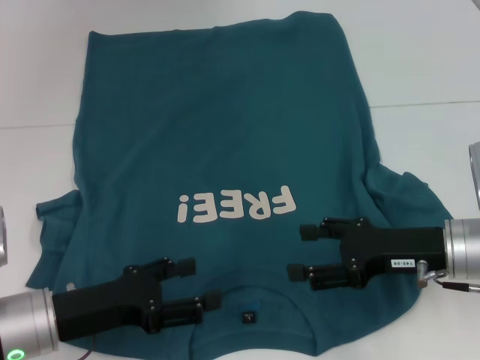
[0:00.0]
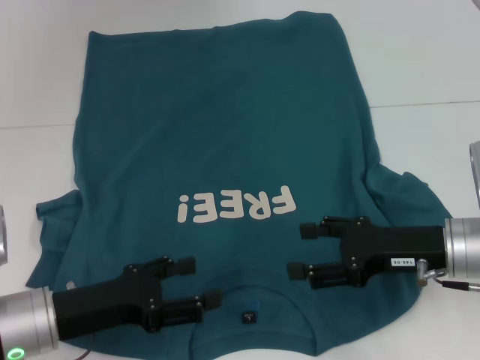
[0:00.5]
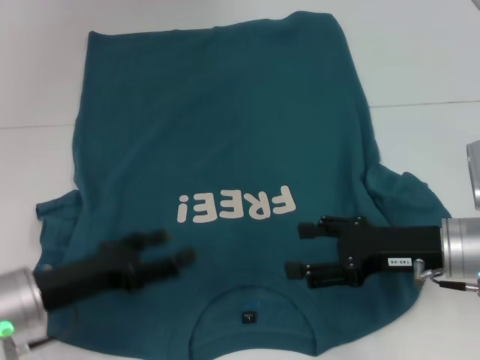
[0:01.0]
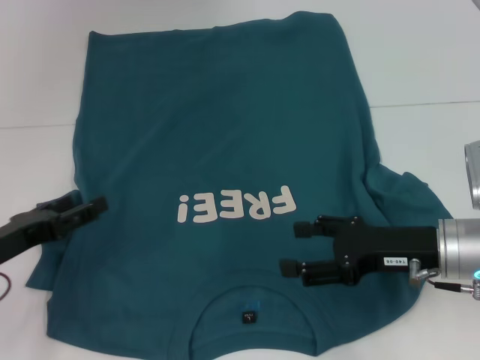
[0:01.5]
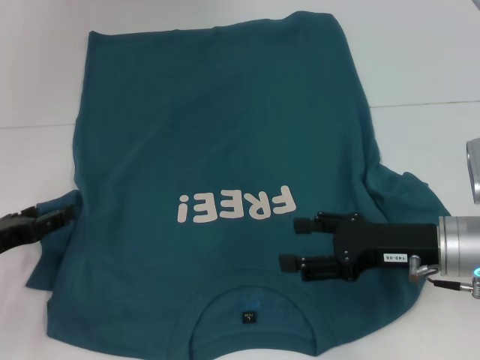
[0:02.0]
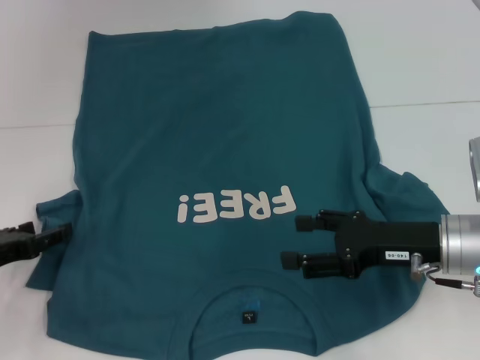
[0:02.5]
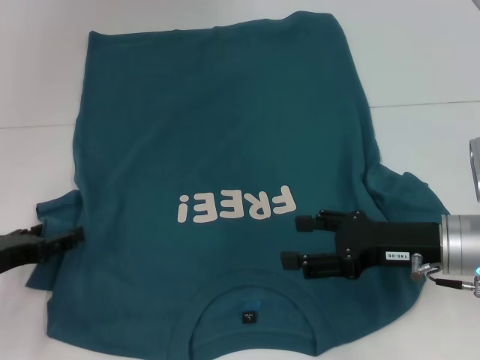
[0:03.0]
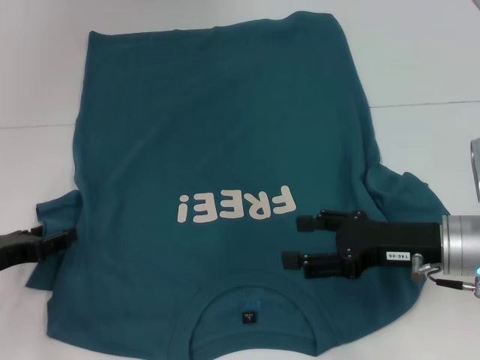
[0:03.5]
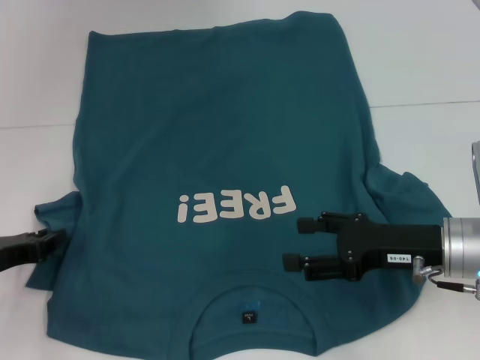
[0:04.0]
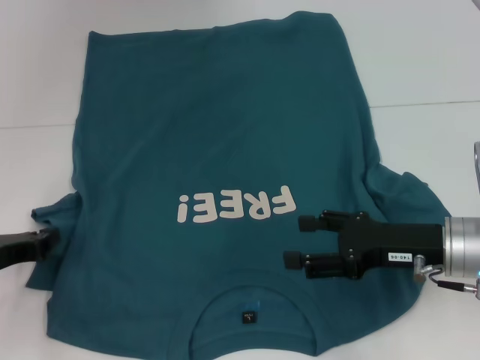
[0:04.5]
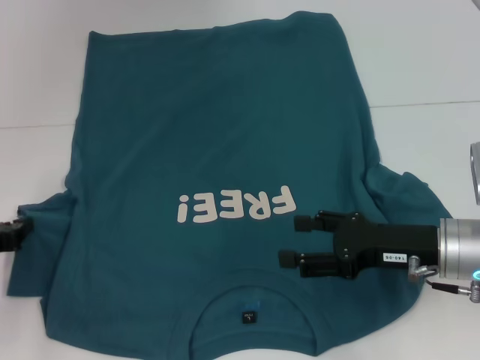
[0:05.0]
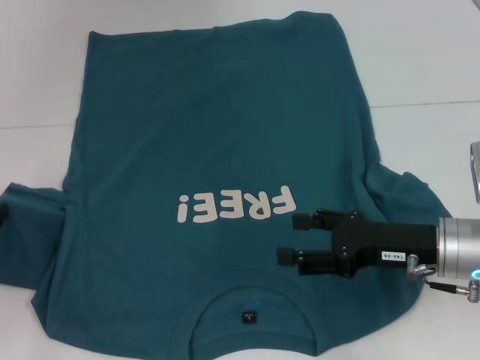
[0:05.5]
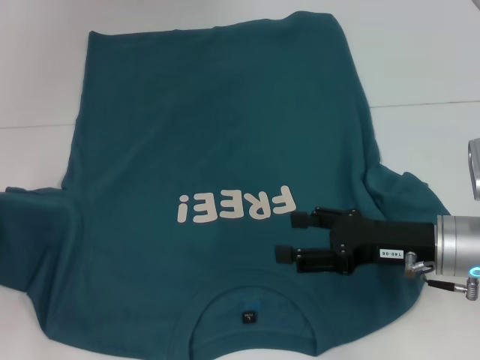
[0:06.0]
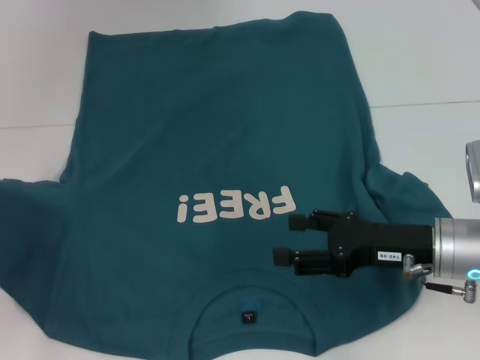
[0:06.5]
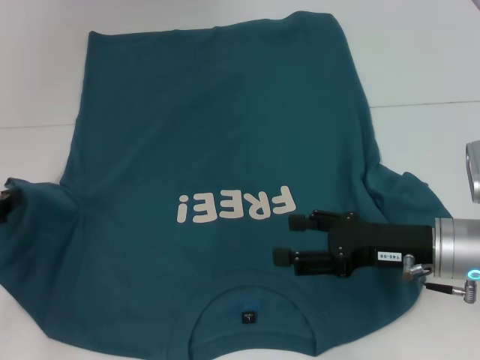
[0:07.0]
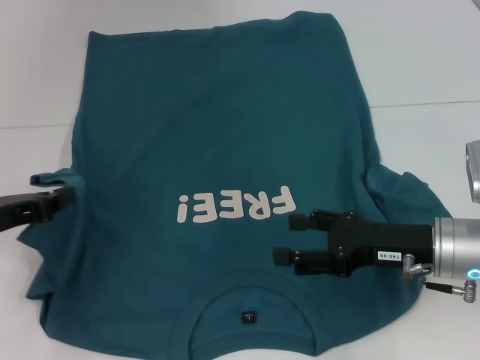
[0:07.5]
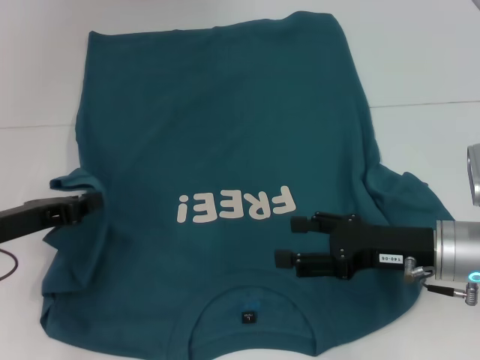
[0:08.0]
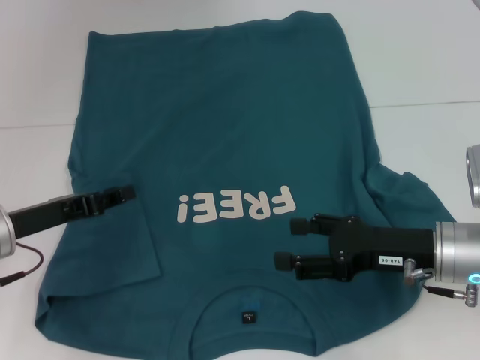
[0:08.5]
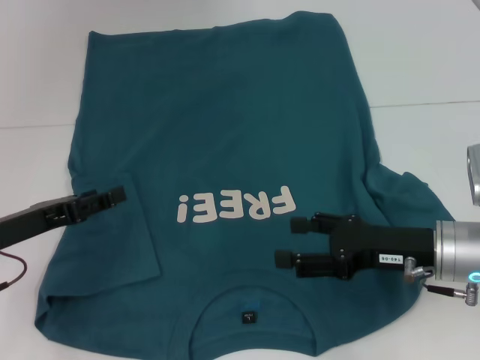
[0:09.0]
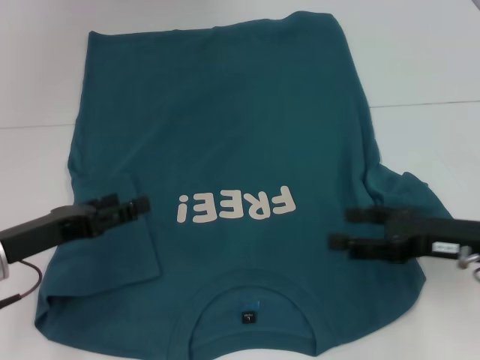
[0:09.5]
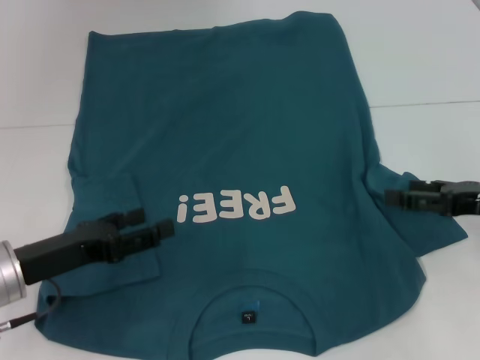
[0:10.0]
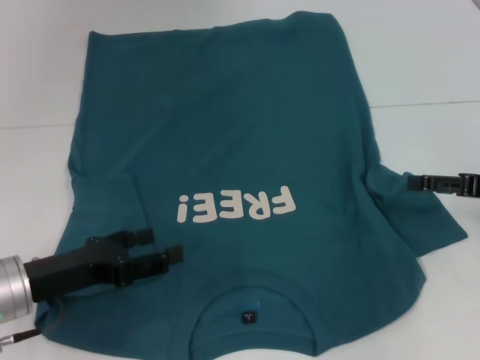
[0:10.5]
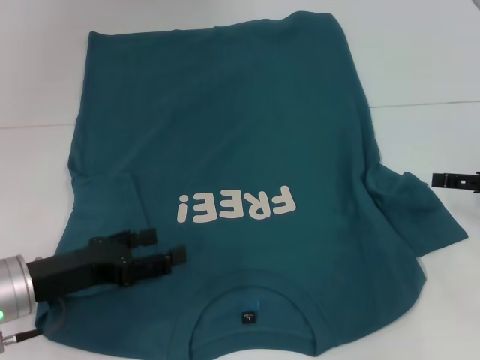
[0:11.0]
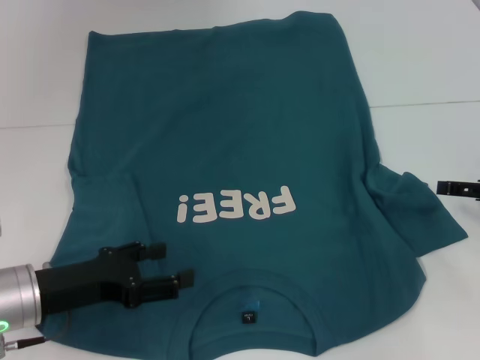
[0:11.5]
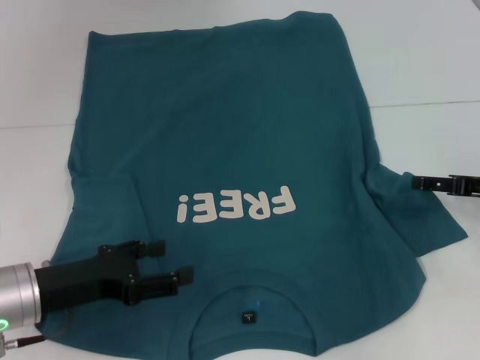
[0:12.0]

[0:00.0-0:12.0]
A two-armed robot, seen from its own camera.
Step, 0:00.0 to 0:08.5: Fold the bottom left sleeve with your left hand.
0:00.0 to 0:02.0: The left gripper shifts about 10 cm to the left.
0:02.0 to 0:04.0: The left gripper closes its fingers.
0:04.0 to 0:06.0: The left gripper ends up some 5 cm from where it was, and closes.
0:06.0 to 0:08.0: The left gripper heads to the right, covering roughly 10 cm.
0:08.0 to 0:10.0: The left gripper opens its fingers; the right gripper heads to the right, covering approximately 10 cm.

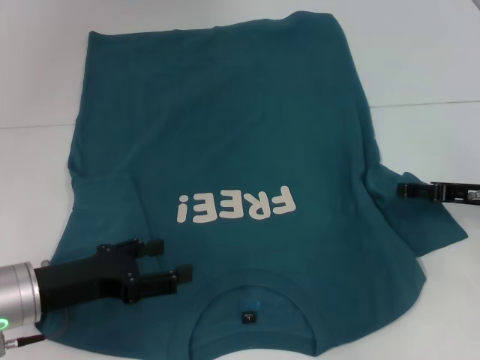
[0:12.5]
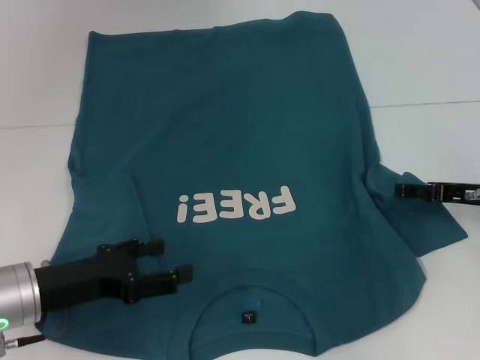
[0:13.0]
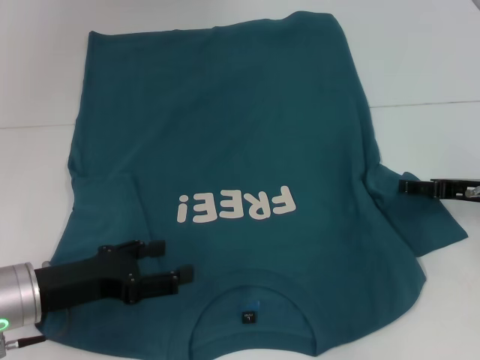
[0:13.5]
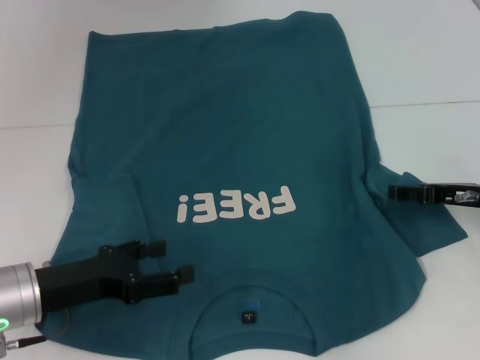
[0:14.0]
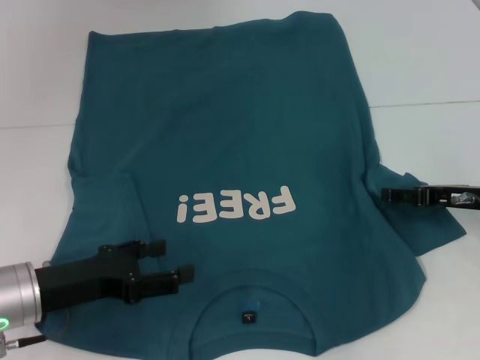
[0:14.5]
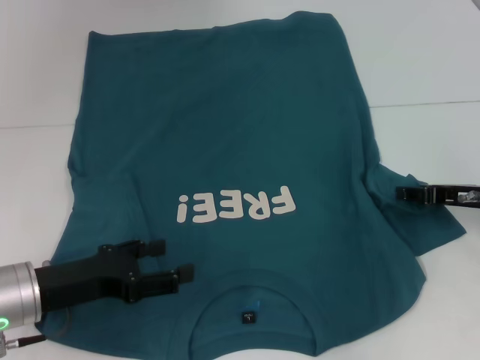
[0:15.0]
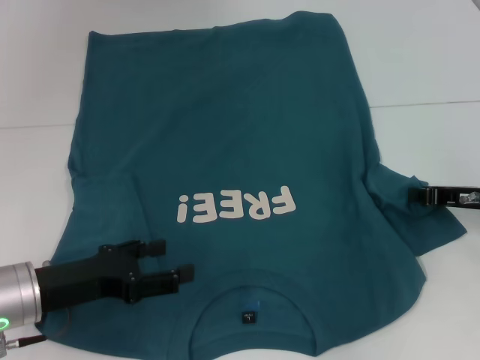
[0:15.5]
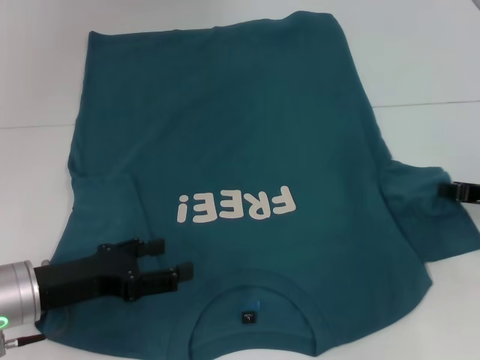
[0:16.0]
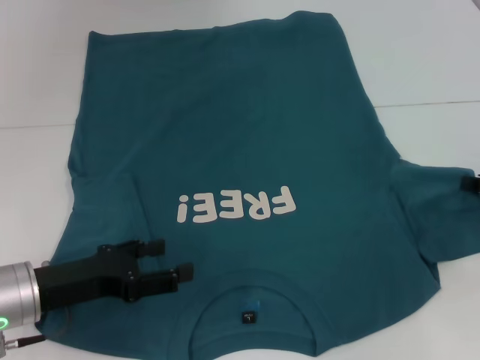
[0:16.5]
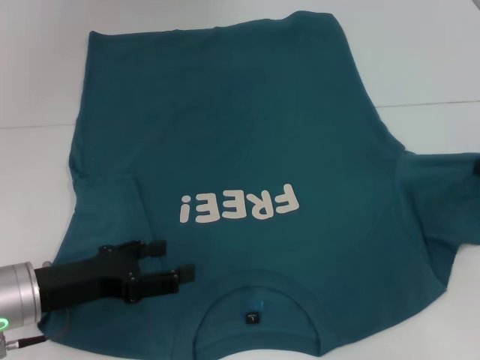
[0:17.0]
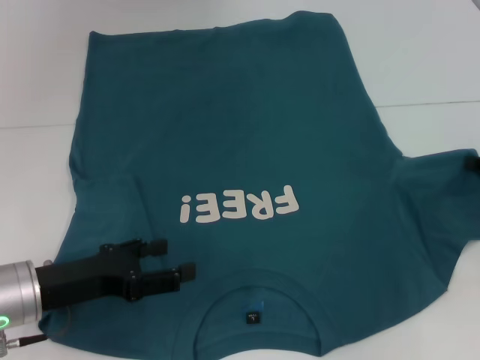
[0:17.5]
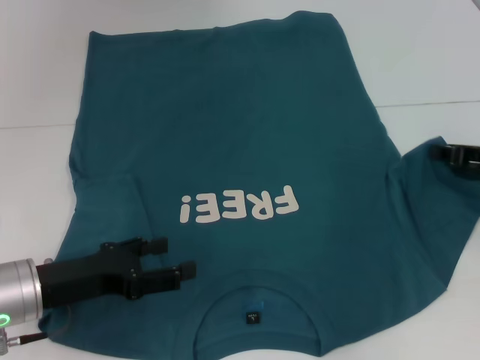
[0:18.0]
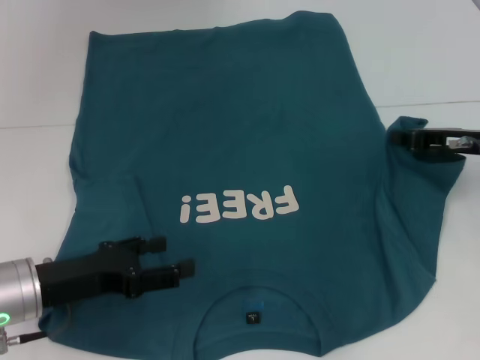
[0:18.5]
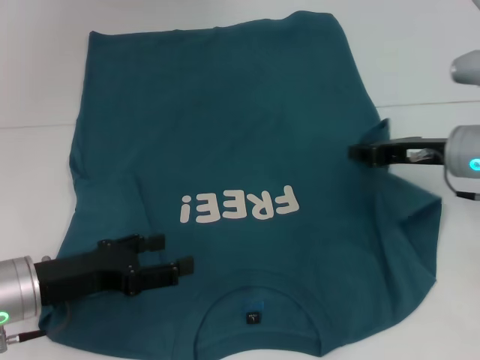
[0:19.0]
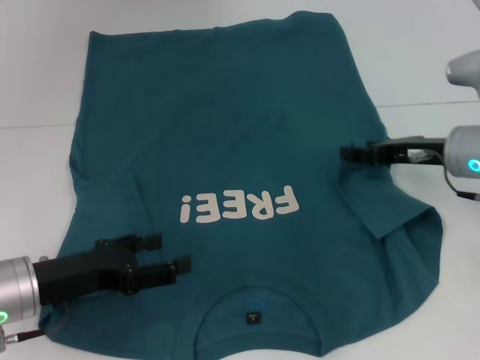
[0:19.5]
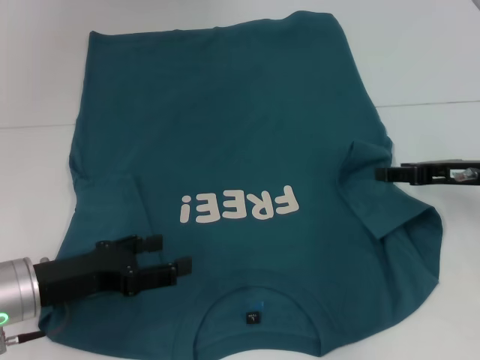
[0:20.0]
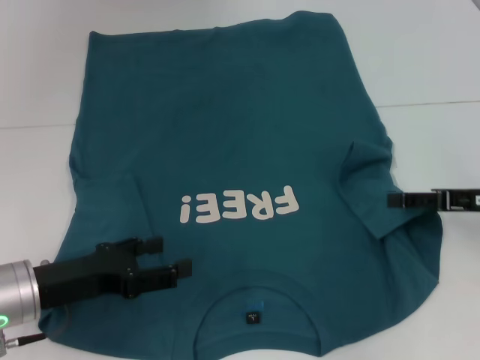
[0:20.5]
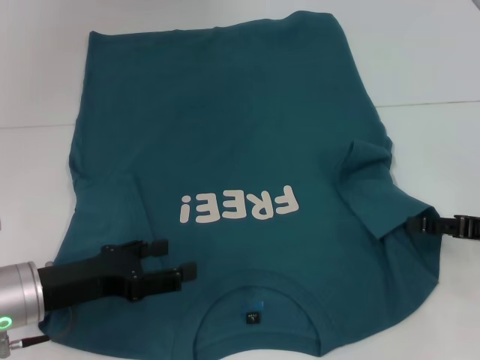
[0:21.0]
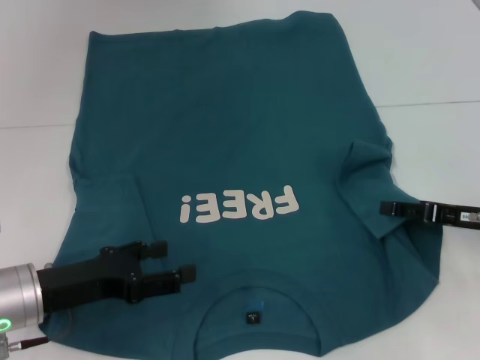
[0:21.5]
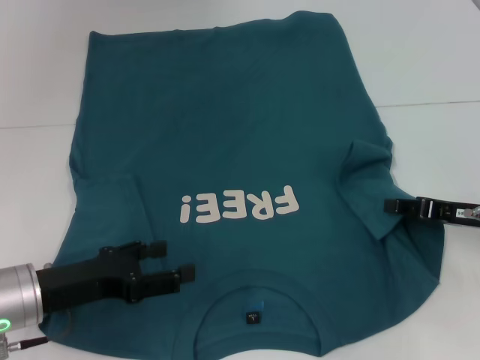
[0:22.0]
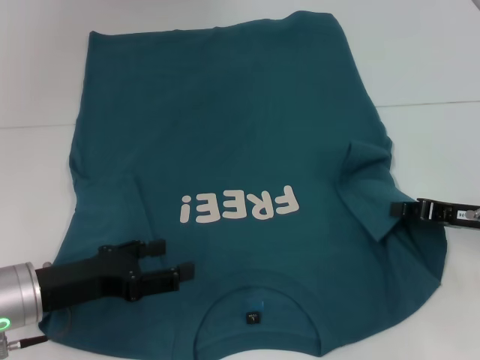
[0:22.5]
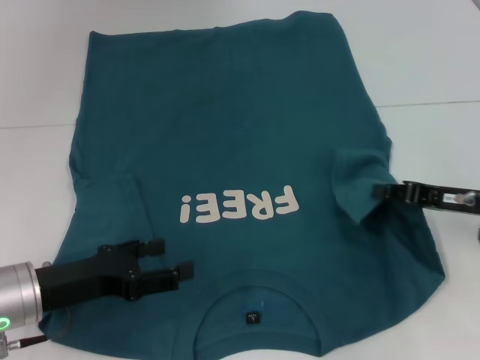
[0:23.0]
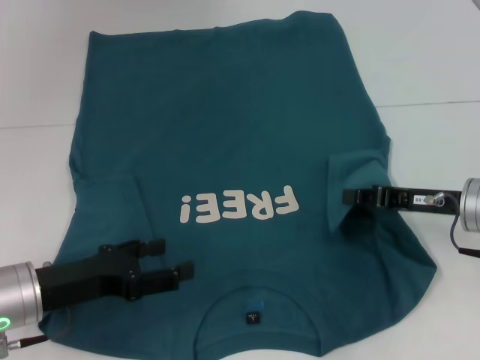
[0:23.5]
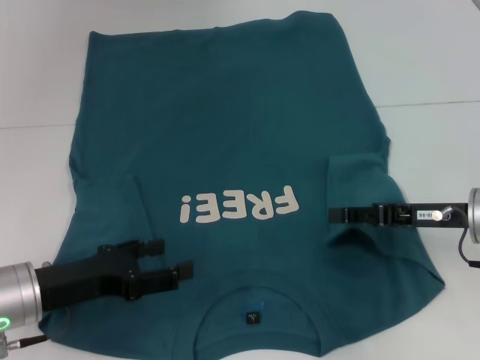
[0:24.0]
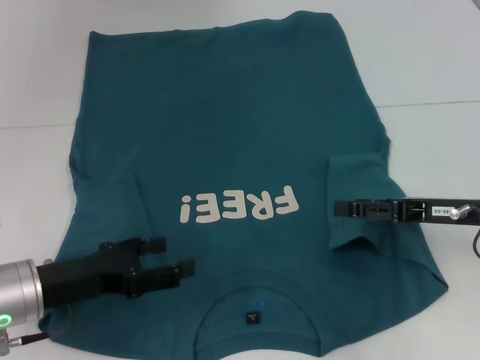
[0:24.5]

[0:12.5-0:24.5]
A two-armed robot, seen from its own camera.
Step, 0:12.5 to 0:24.0: Fold the bottom right sleeve to the right.
0:12.5 to 0:14.5: The grippers move only a little.
0:14.5 to 0:16.5: The right gripper goes approximately 5 cm to the right, and closes up.
0:16.5 to 0:18.5: The right gripper is displaced to the left and forward by about 10 cm.
0:18.5 to 0:20.5: The right gripper moves backward, some 5 cm, and opens its fingers.
0:20.5 to 0:22.5: The right gripper closes up.
0:22.5 to 0:24.5: The right gripper opens.

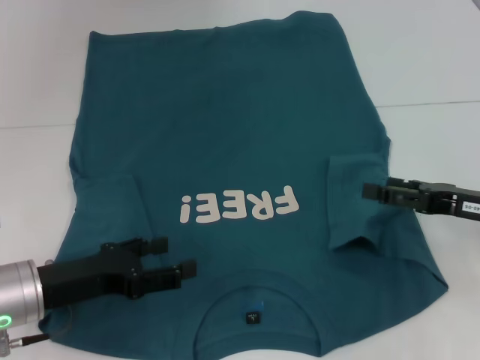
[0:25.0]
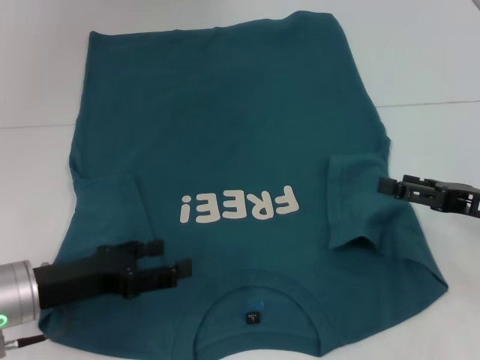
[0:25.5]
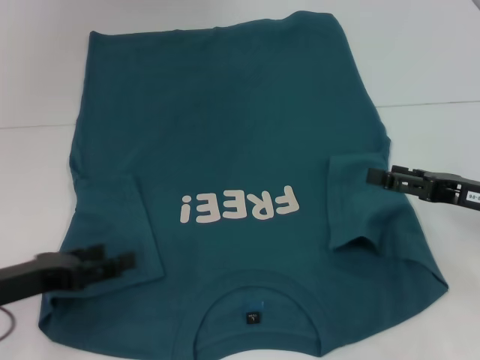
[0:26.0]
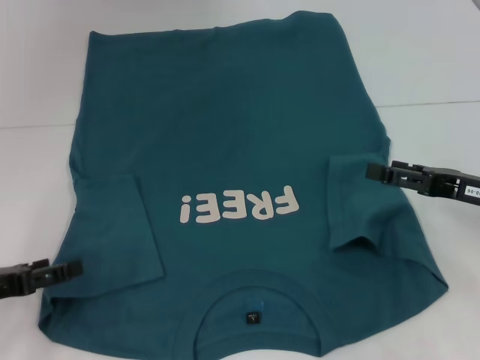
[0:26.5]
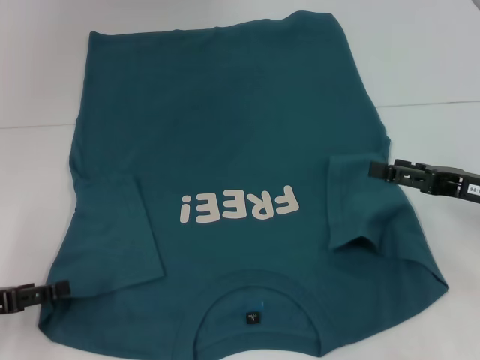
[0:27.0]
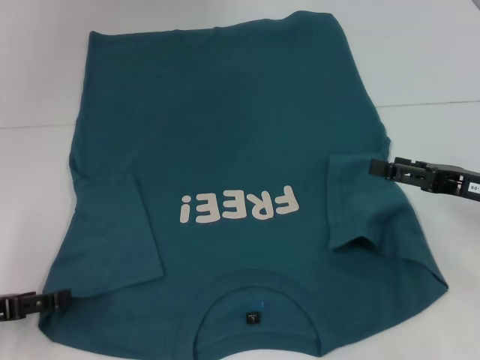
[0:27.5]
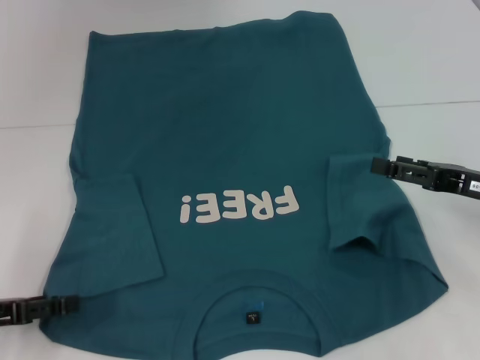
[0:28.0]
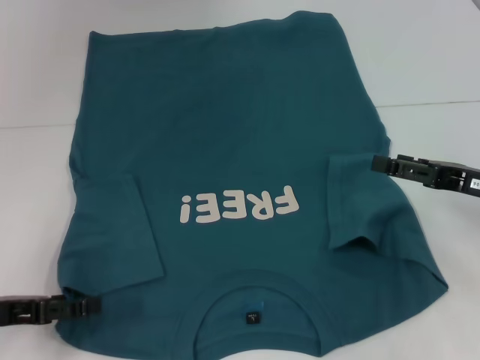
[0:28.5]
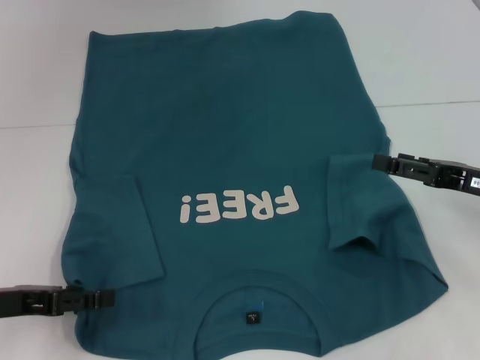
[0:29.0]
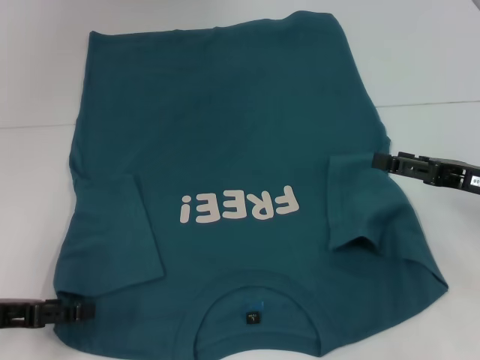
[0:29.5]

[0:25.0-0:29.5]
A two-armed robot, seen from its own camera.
0:25.0 to 0:27.0: The left gripper is displaced to the left by roughly 10 cm.
0:27.0 to 0:29.5: The grippers move only a little.
